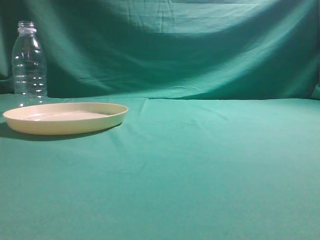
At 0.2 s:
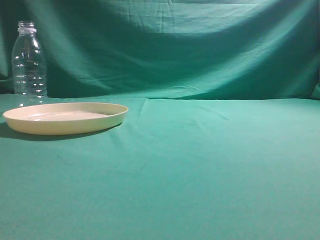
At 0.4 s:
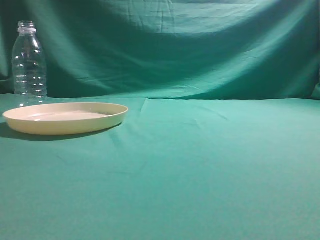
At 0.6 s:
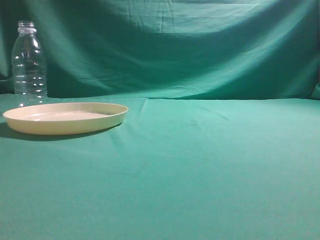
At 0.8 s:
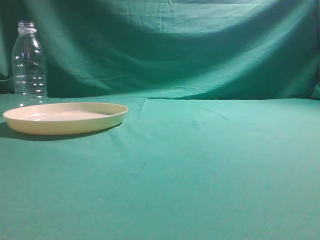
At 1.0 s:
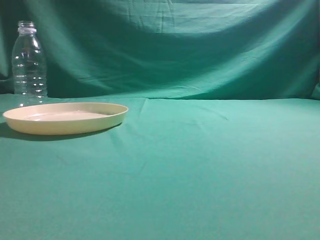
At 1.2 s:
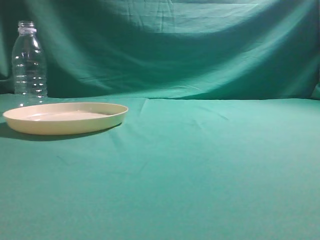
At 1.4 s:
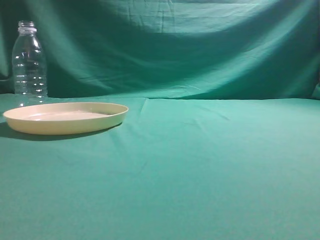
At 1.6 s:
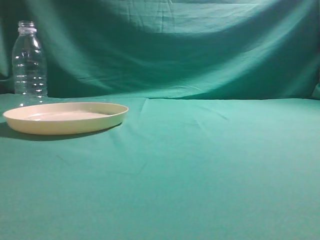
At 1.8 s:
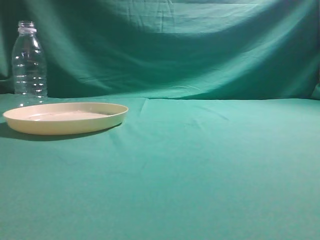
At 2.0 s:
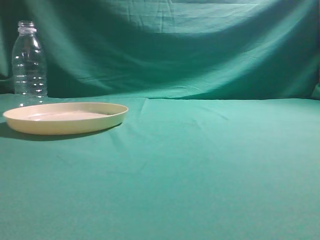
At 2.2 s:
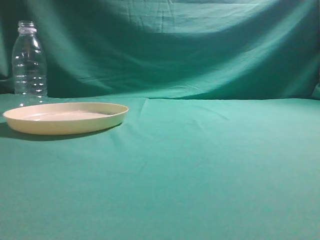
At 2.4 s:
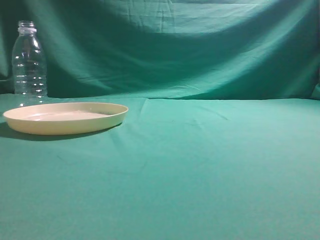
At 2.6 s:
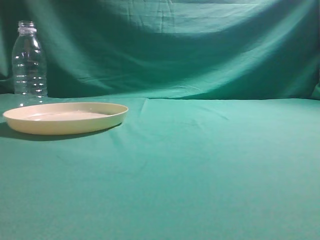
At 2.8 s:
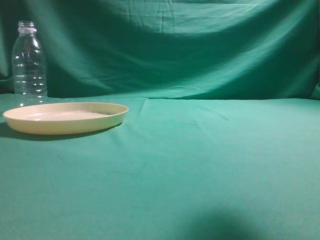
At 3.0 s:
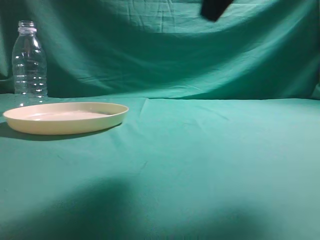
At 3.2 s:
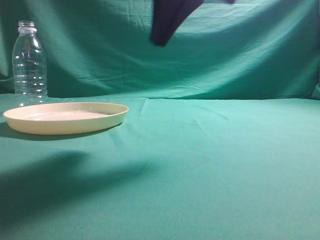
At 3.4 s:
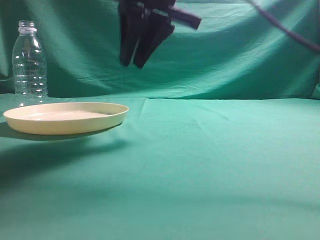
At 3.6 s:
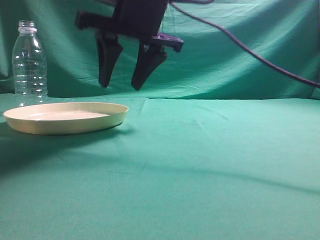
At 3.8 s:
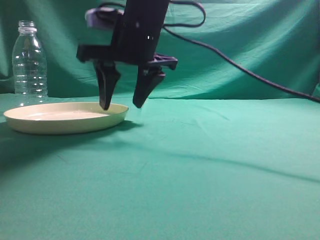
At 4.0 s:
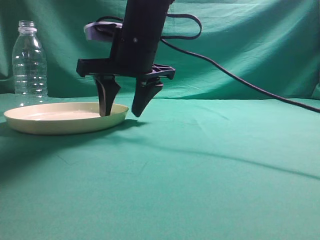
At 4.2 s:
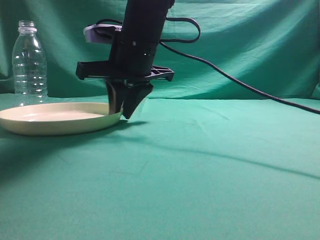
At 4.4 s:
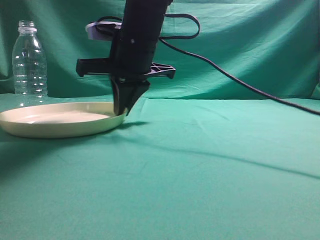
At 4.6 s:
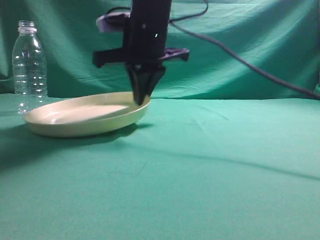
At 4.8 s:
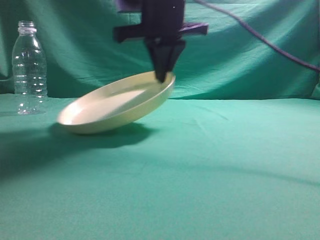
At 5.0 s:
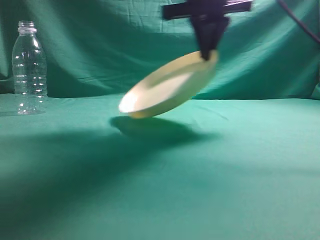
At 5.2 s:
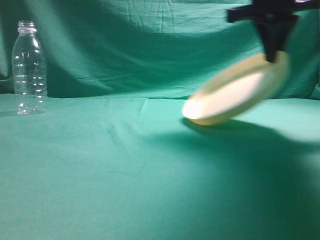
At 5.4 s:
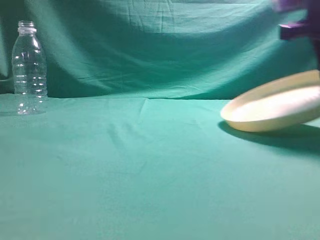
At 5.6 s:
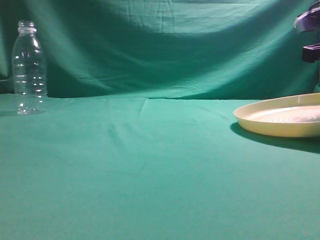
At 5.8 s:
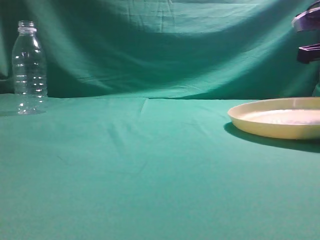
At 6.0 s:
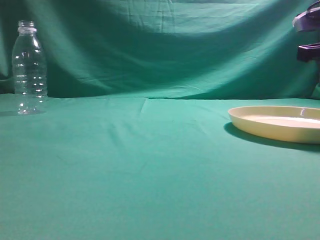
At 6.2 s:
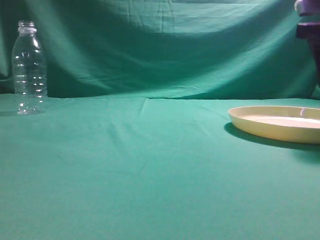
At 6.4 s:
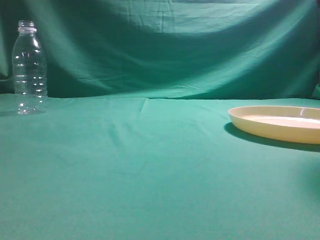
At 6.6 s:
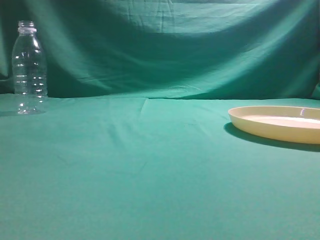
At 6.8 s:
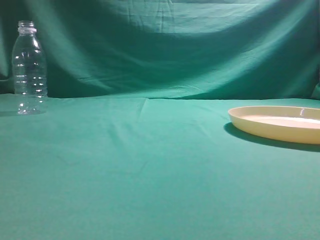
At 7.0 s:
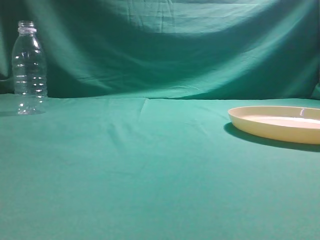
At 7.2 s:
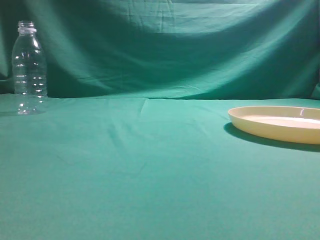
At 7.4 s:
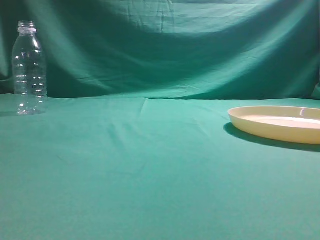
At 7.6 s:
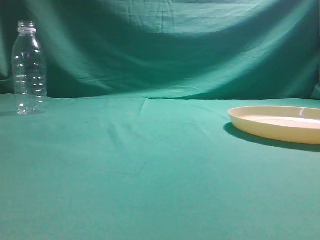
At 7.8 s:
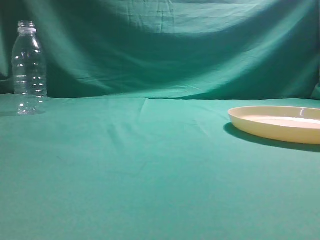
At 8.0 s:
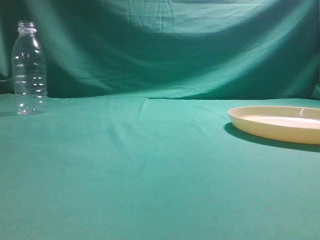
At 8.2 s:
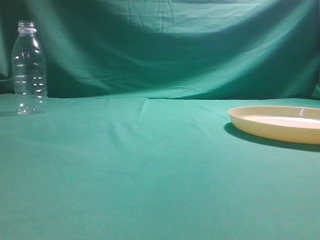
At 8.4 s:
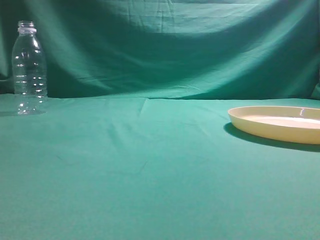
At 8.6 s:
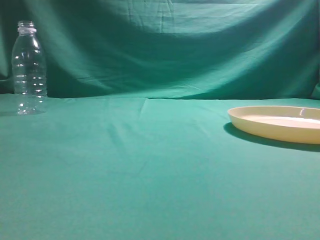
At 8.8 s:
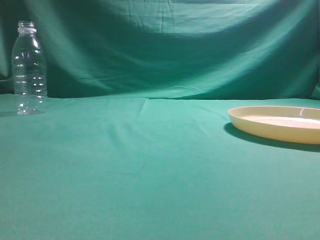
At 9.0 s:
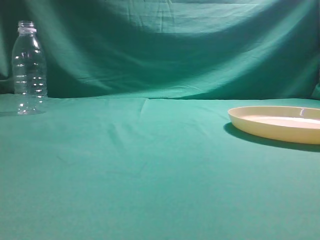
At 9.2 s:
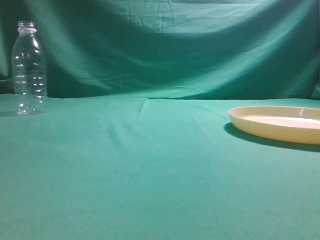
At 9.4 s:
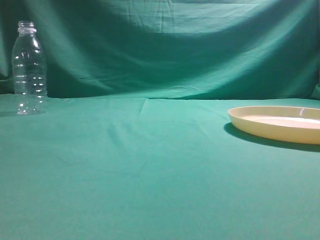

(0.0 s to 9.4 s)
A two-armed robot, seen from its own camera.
Step, 0.0 s - 4.8 s: Pick the container that can hold fruits.
Step, 5.0 s - 6.2 s: Move the picked object to the right side of the table.
1.6 s - 3.2 s: The right gripper heads forward and to the left, covering some 30 cm.
3.2 s - 4.8 s: The right gripper shifts about 10 cm forward and downward, and opens, then closes again.
4.8 s - 6.2 s: The right gripper travels to the right by some 25 cm, and opens.
6.2 s - 7.8 s: The right gripper goes approximately 40 cm backward and upward, and closes its fingers.
